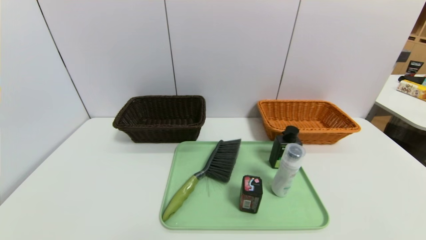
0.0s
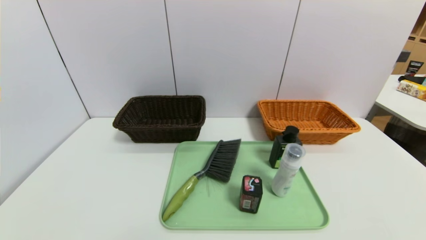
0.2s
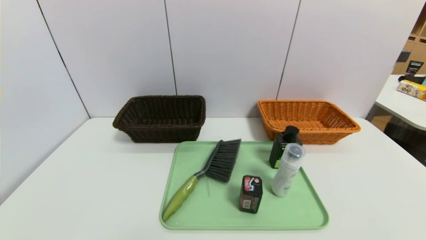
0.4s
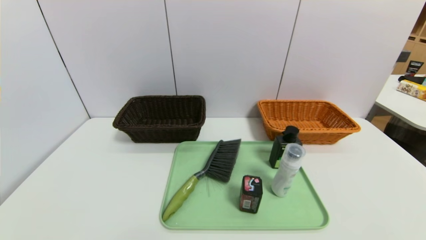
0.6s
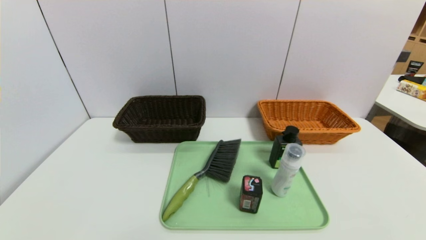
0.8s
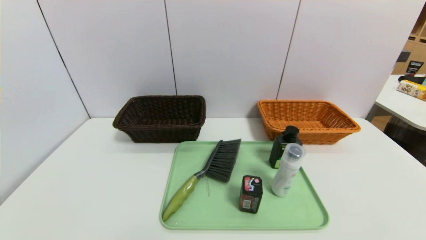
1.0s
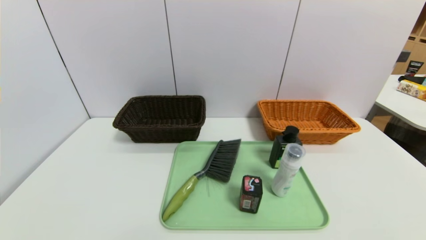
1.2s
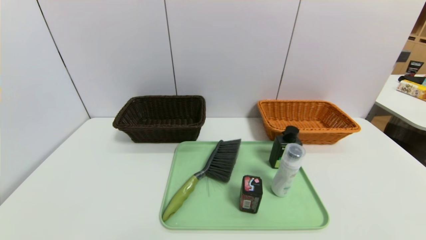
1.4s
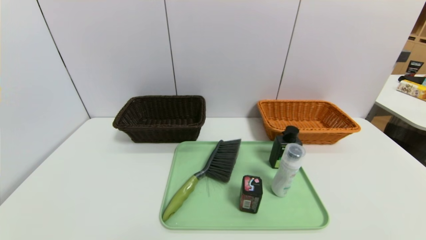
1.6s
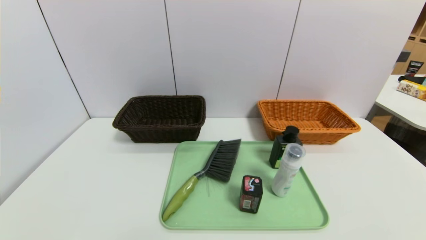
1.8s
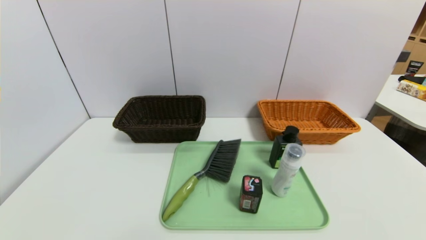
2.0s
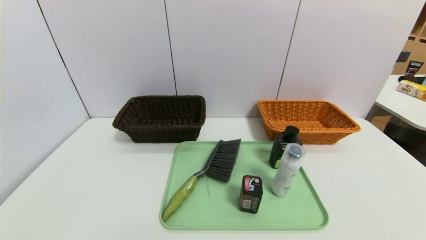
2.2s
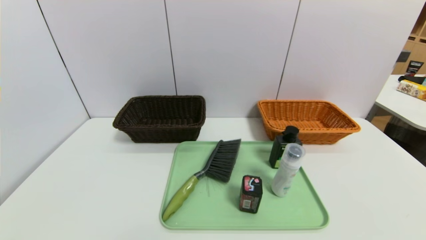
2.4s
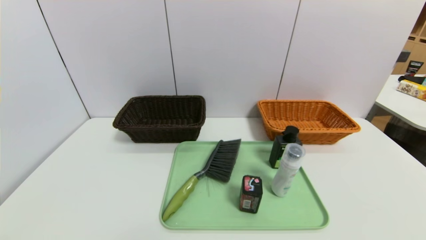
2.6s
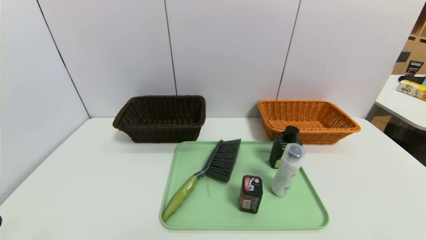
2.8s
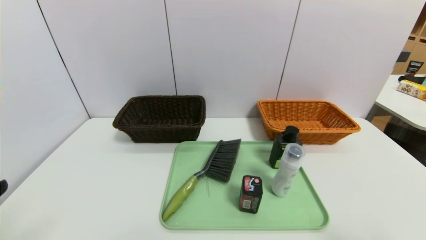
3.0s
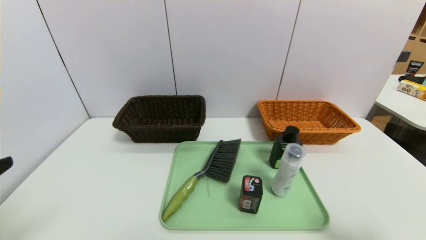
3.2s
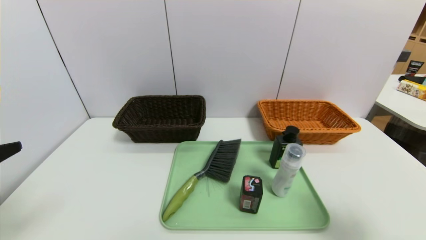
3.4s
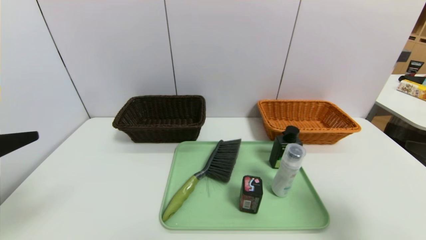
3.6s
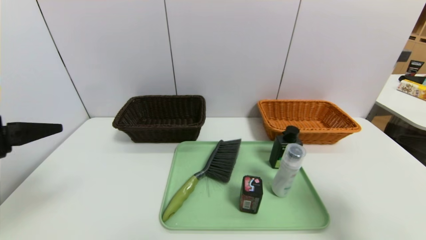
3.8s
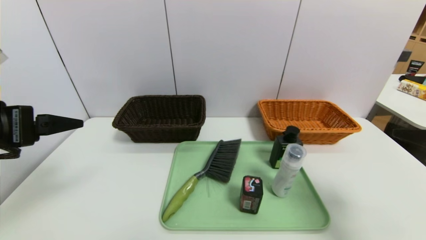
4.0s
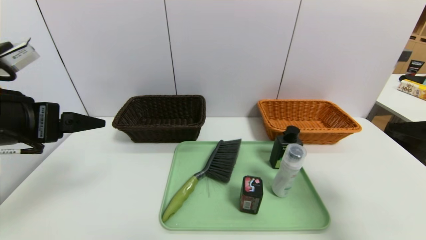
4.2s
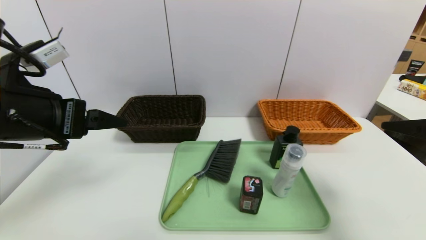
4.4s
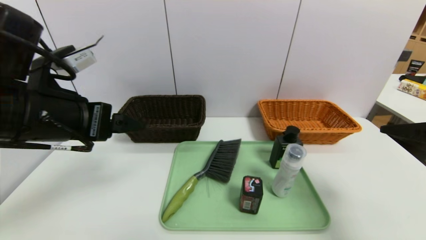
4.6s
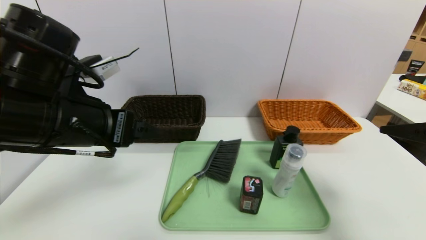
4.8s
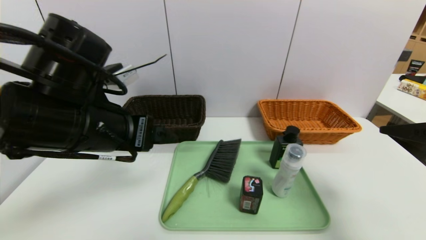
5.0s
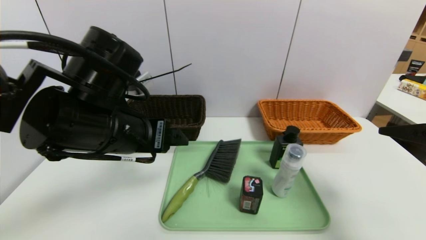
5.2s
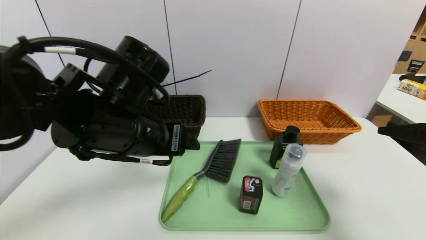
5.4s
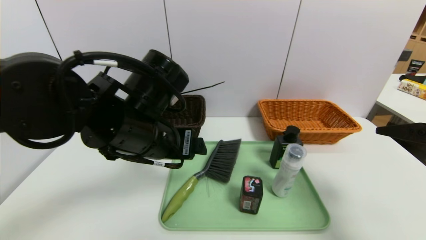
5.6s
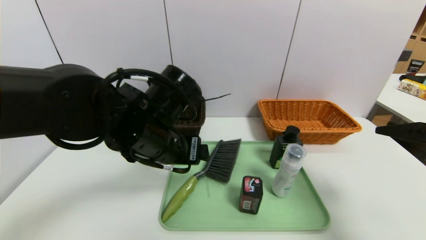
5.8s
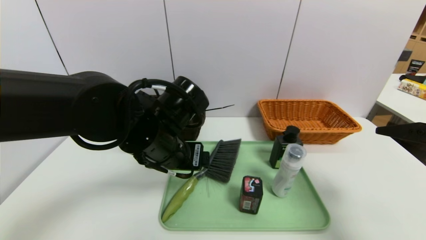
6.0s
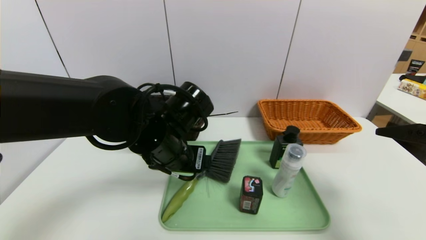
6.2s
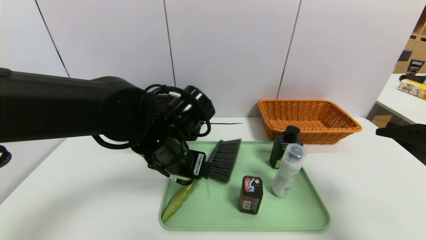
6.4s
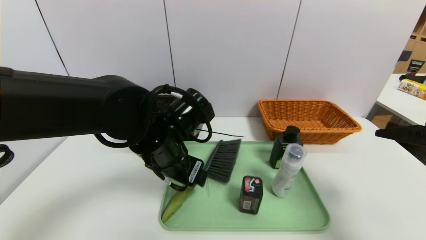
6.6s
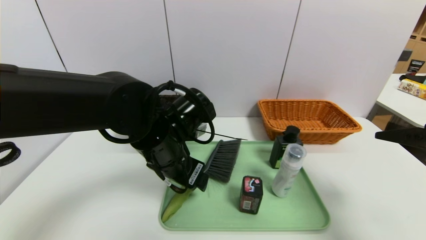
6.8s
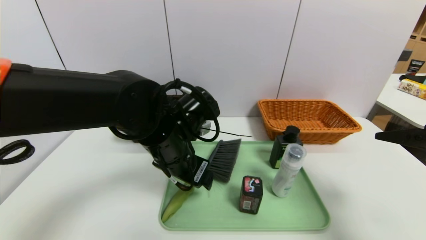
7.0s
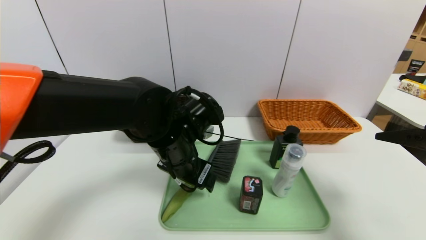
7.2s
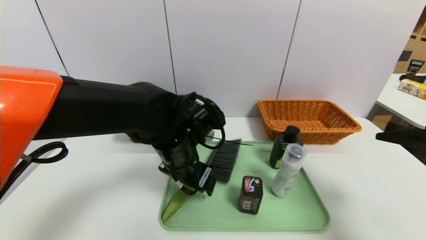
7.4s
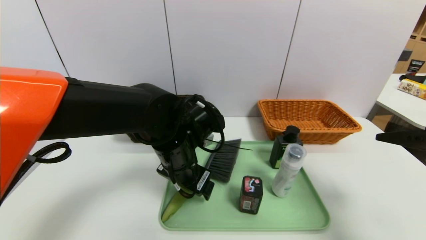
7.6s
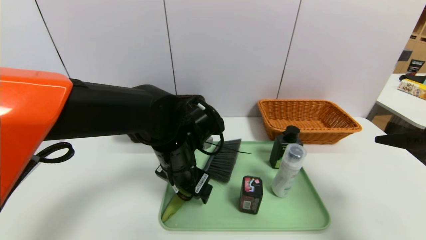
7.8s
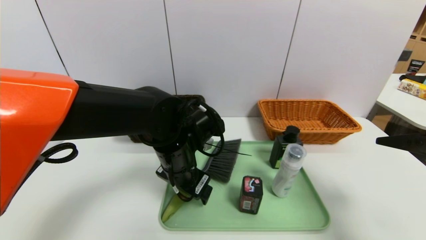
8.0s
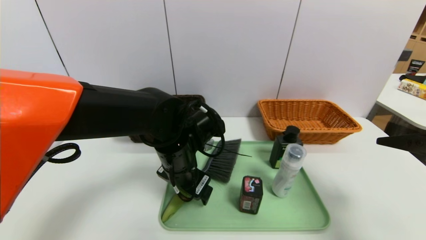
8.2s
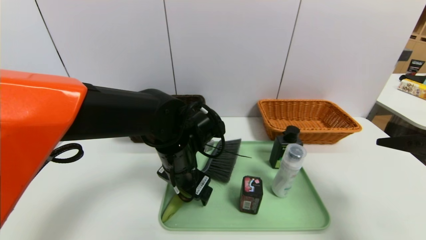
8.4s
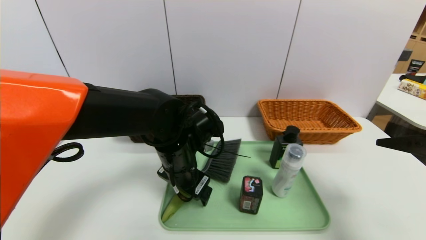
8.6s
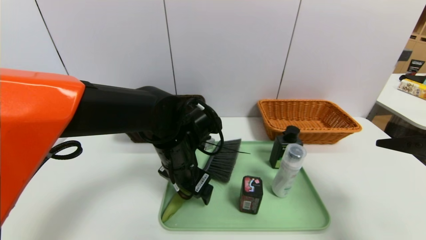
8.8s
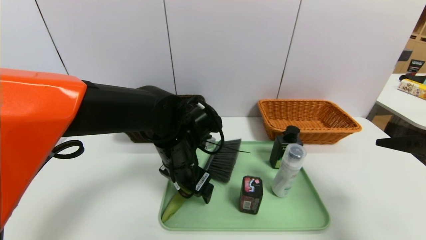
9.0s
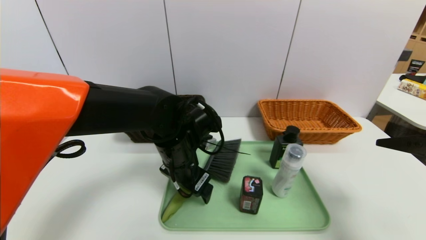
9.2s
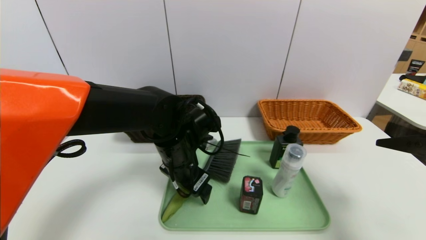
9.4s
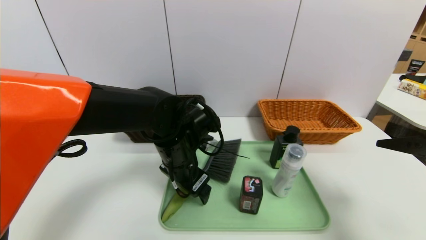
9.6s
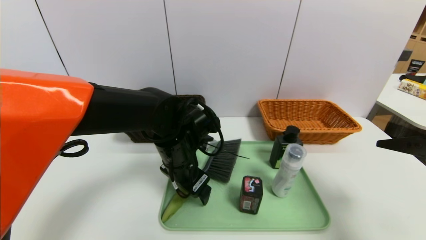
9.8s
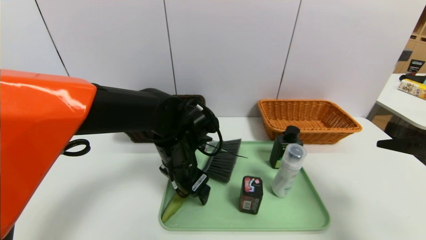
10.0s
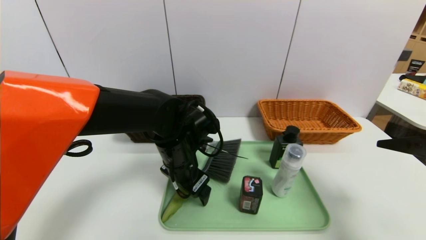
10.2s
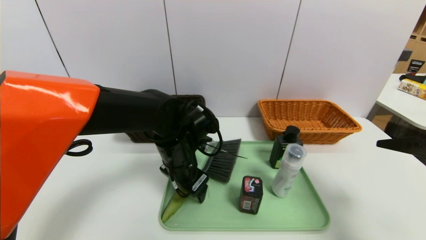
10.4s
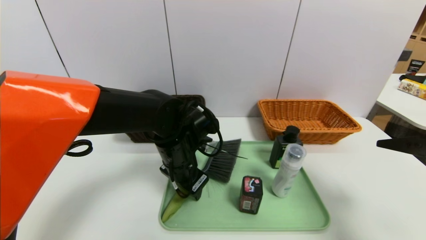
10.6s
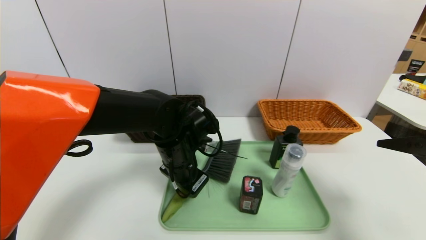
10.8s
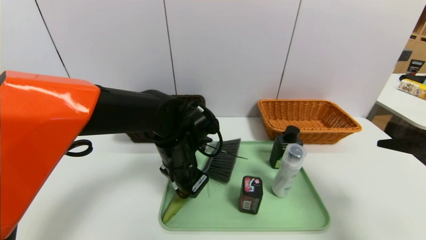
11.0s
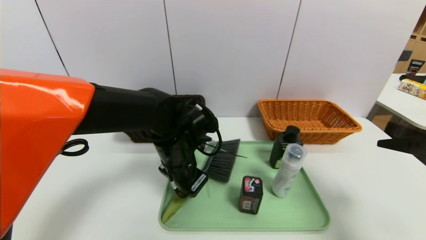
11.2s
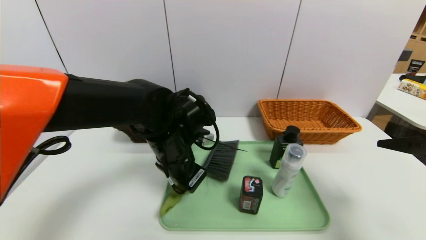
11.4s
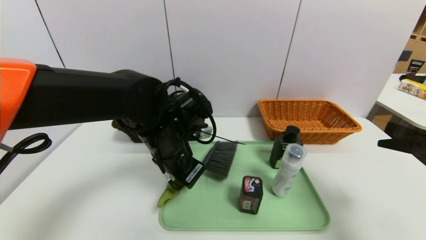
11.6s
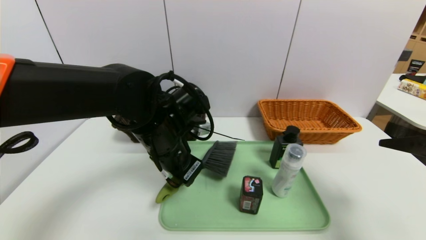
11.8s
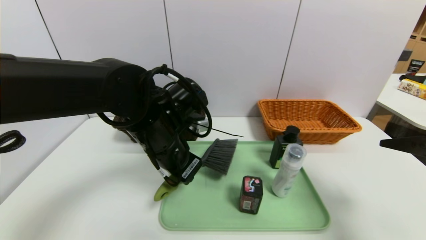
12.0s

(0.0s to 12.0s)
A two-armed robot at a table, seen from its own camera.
Task of the whole recording: place the food in the right basket with the right gripper, and place the non food items in the left basket with the left gripper.
0.0s - 1.6s: Neither gripper changes place.
3.0s - 4.4s: The left gripper goes about 15 cm forward, while the right gripper heads forward and upward, covering approximately 15 cm.
4.4s - 6.0s: The left gripper heads to the right and downward, covering roughly 20 cm.
7.6s - 10.4s: The grippers move only a little.
10.4s - 12.0s: The left gripper heads upward, covering some 5 cm, and closes.

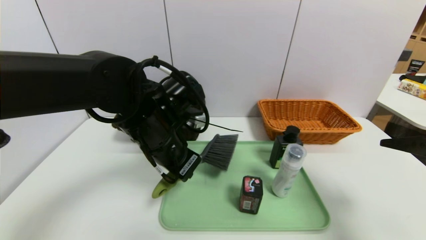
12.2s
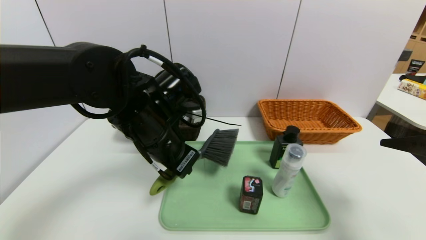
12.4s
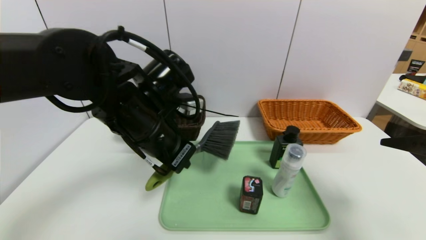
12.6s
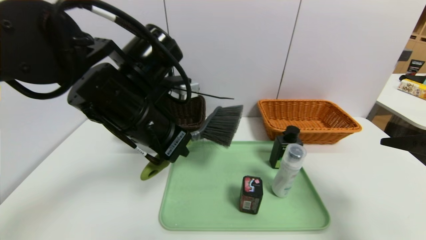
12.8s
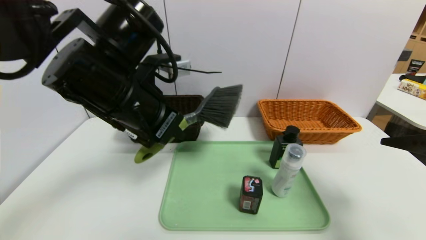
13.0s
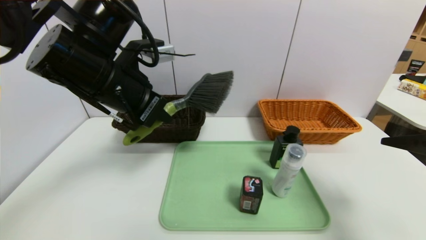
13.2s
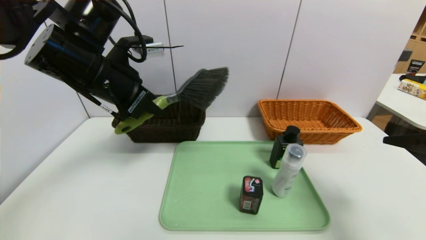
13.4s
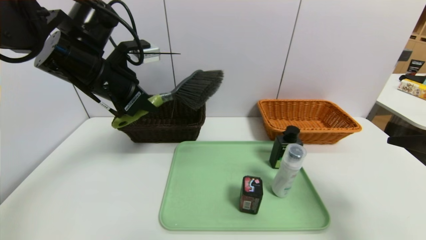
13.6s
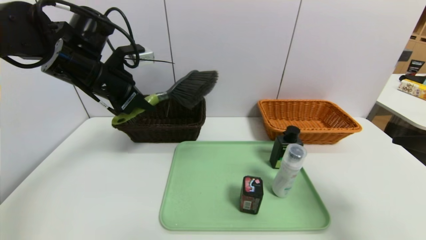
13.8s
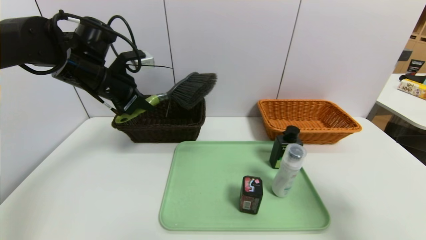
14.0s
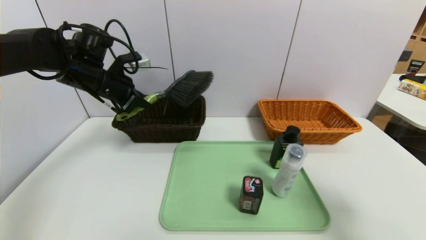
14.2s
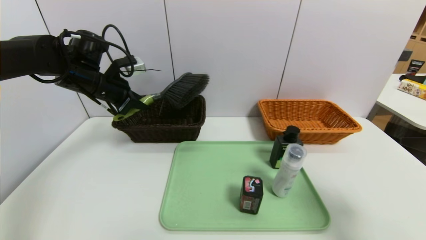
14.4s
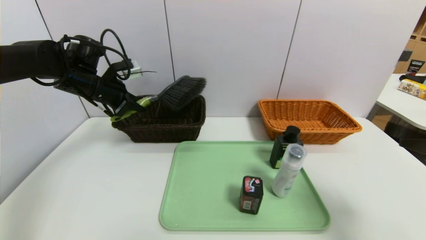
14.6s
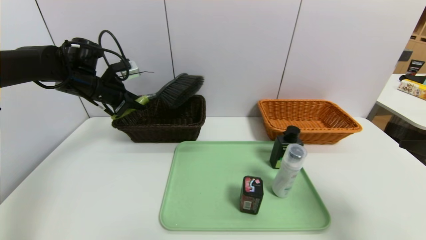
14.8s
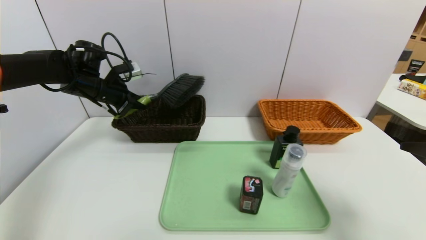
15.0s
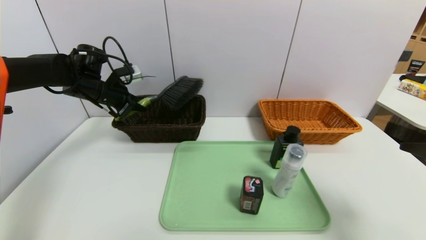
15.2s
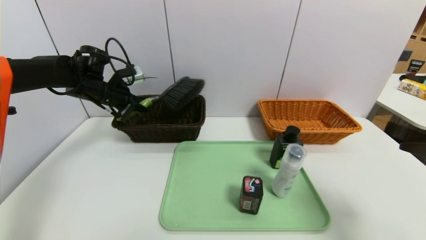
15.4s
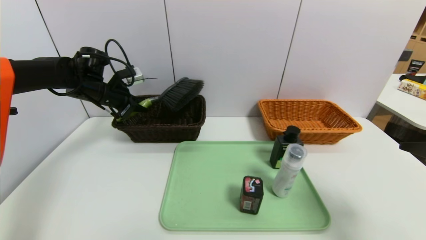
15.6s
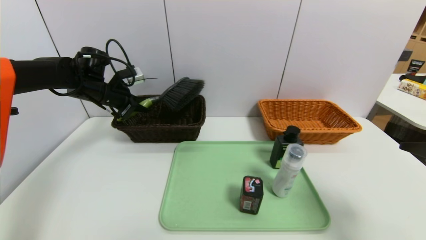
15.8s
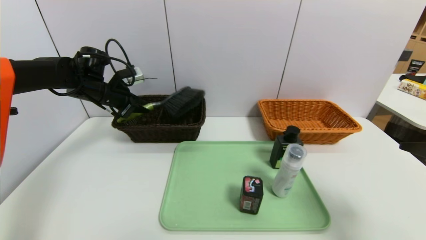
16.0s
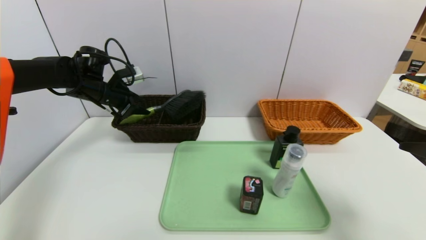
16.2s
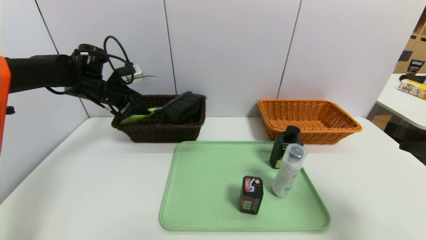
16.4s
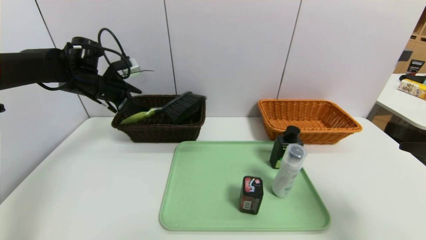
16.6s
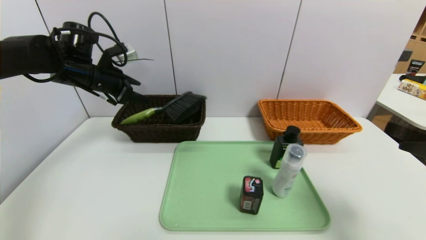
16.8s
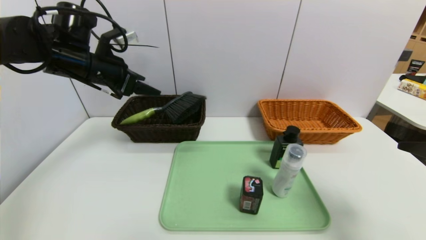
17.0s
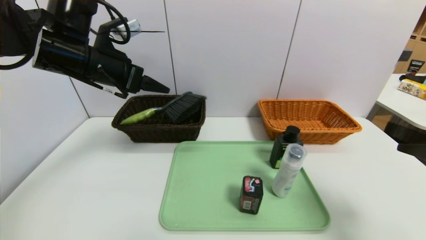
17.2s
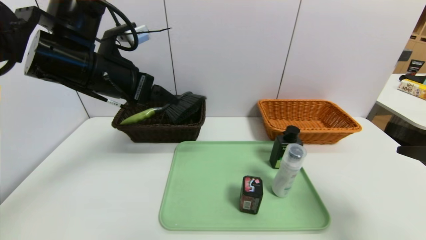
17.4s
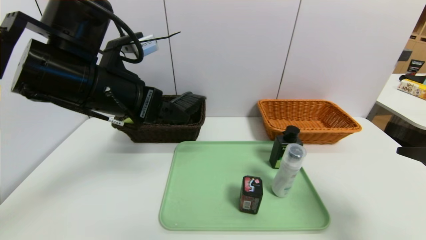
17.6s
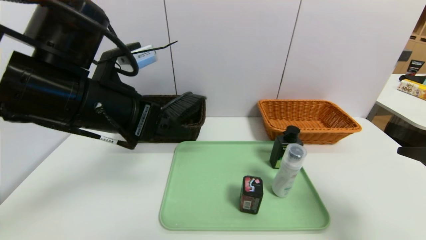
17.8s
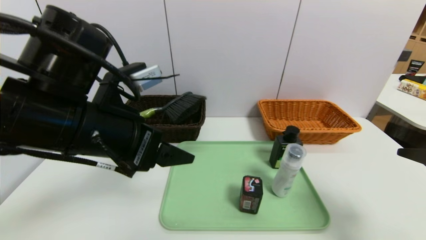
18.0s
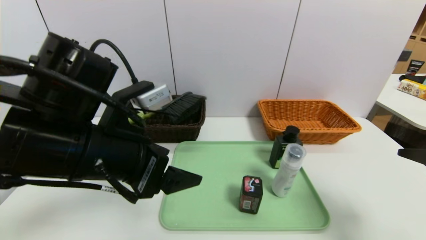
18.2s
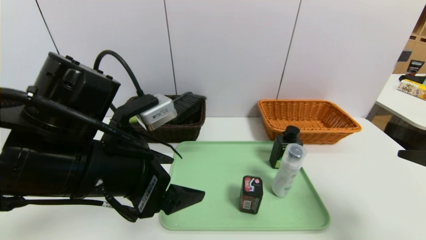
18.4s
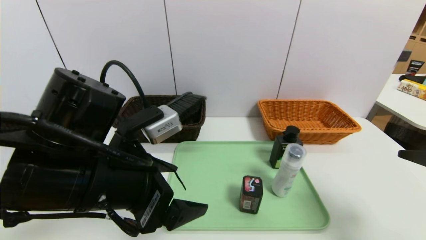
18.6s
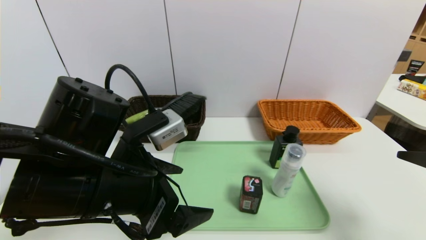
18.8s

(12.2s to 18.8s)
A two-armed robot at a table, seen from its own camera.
Task of the whole recording: place the food in the right basket with the right gripper, and place the non food items in the left basket with the left gripper.
Step, 12.2s - 16.6s: Grasp the brush and put it in the left basket.
12.2s - 13.8s: The left gripper moves to the left, forward and upward, roughly 15 cm.
13.8s - 15.4s: The left gripper heads forward, downward and to the left, covering about 15 cm.
15.4s - 17.2s: The left gripper heads backward, upward and to the right, covering roughly 15 cm, and opens its fingers.
17.2s - 18.8s: The left gripper shifts some 20 cm backward, downward and to the right.
